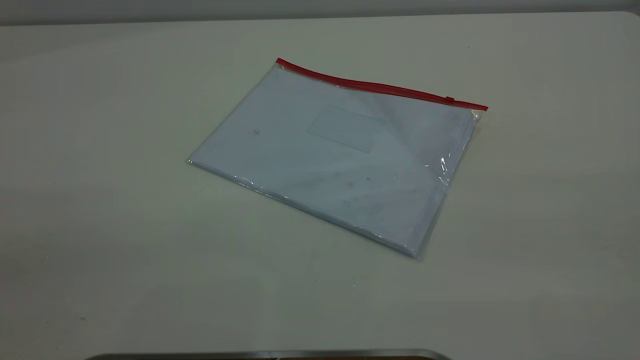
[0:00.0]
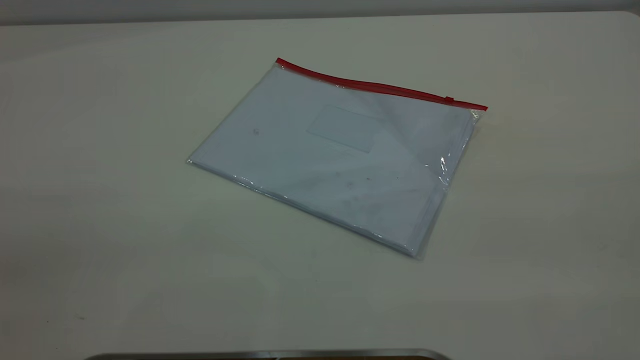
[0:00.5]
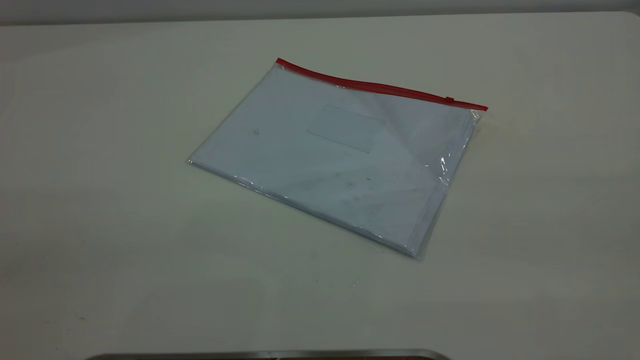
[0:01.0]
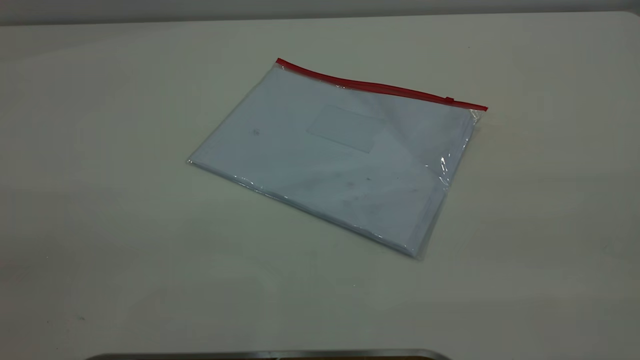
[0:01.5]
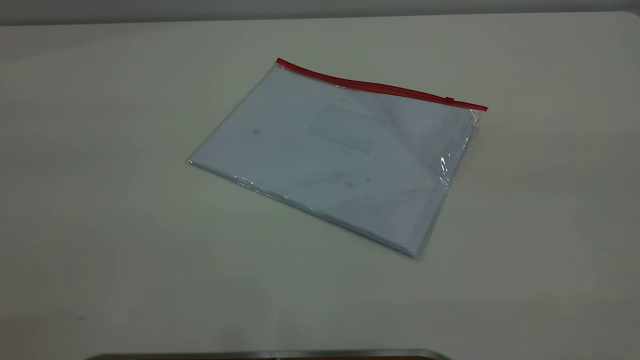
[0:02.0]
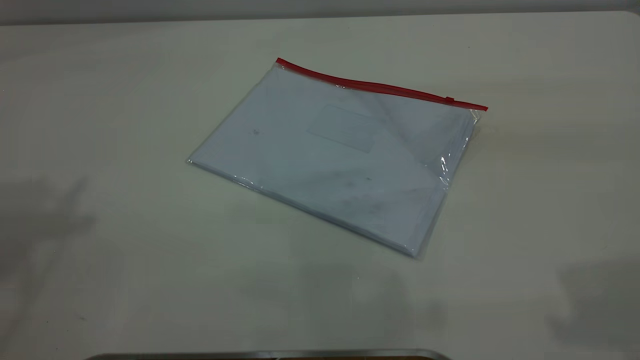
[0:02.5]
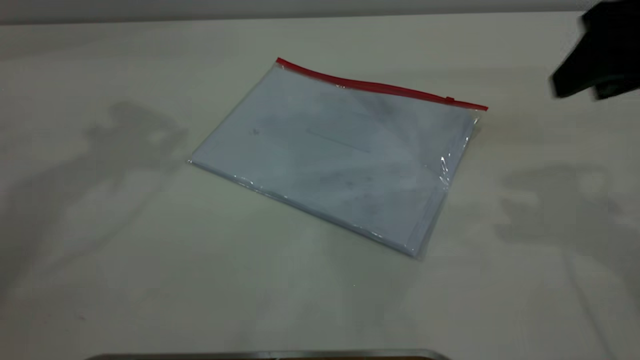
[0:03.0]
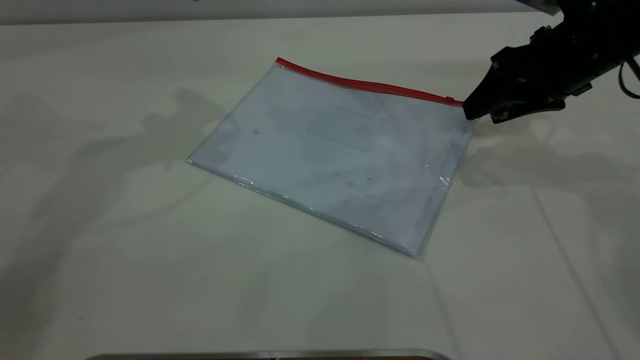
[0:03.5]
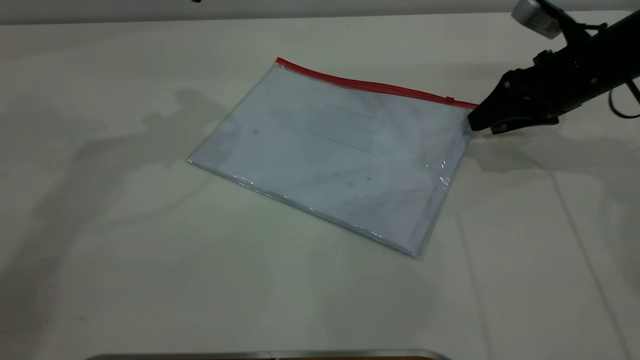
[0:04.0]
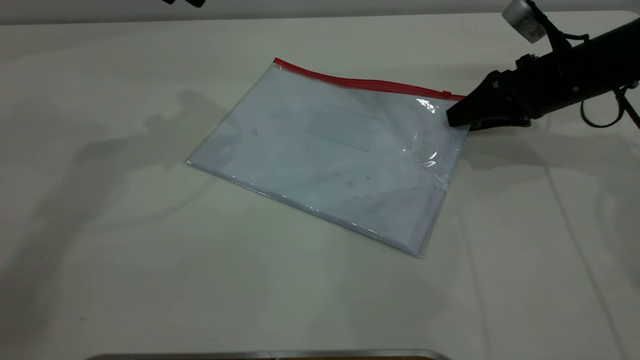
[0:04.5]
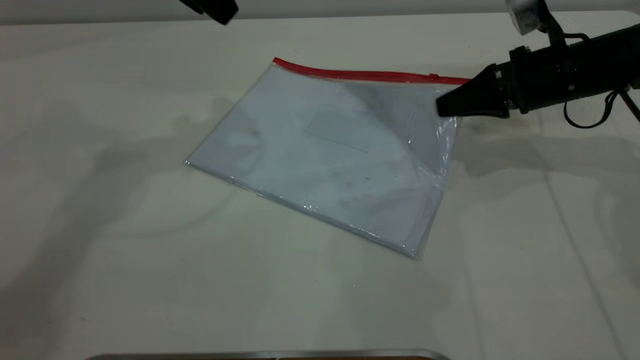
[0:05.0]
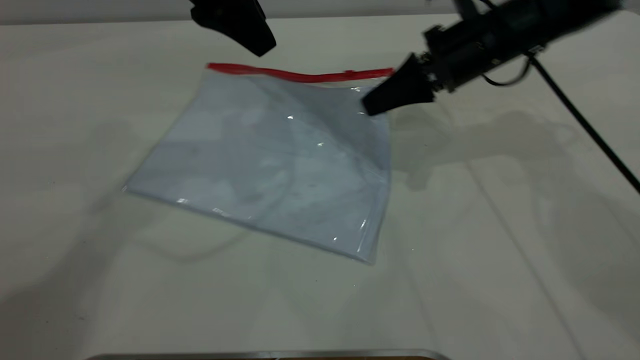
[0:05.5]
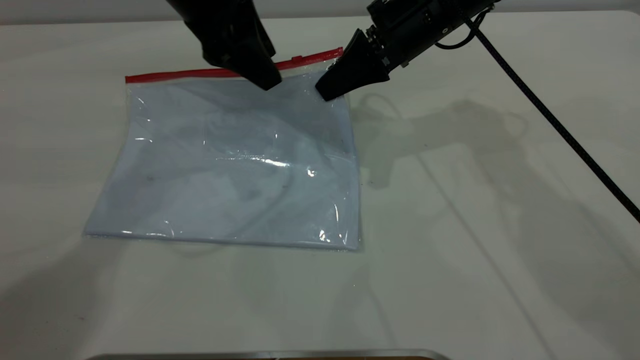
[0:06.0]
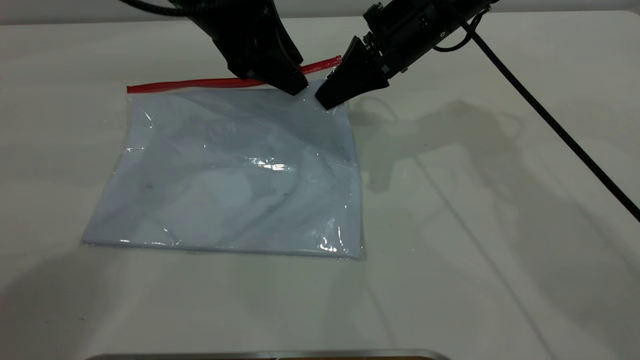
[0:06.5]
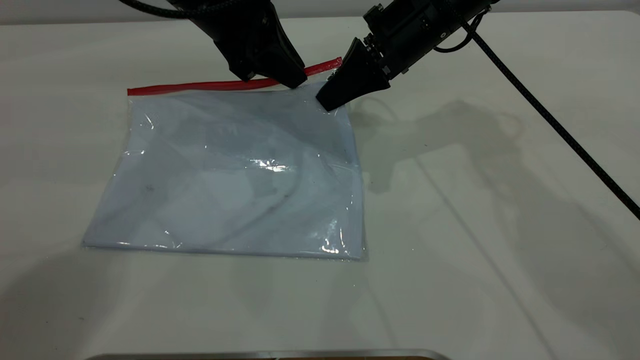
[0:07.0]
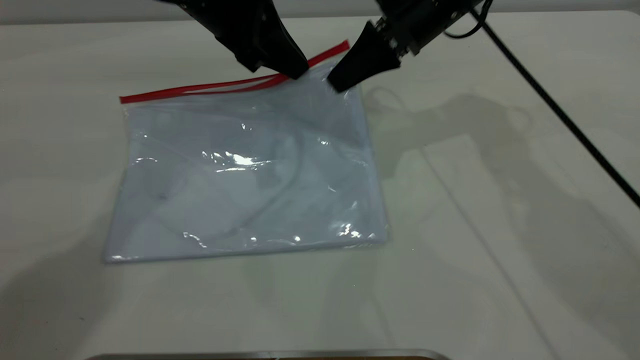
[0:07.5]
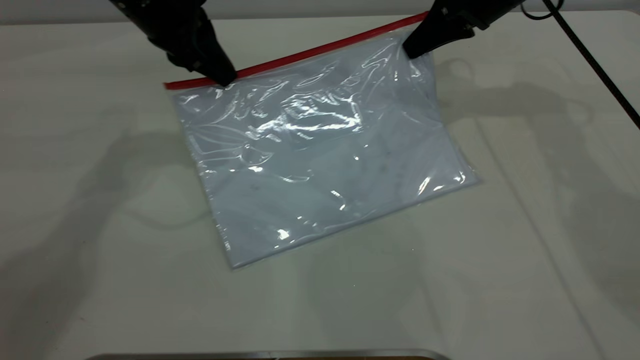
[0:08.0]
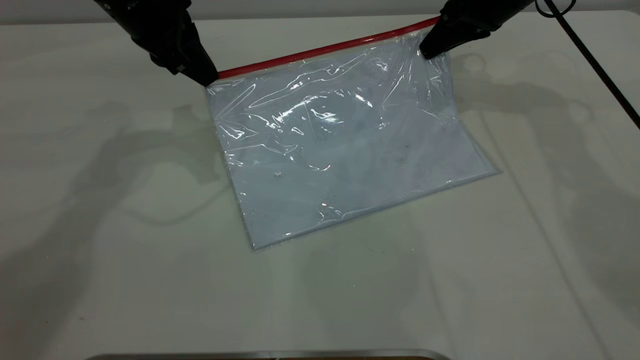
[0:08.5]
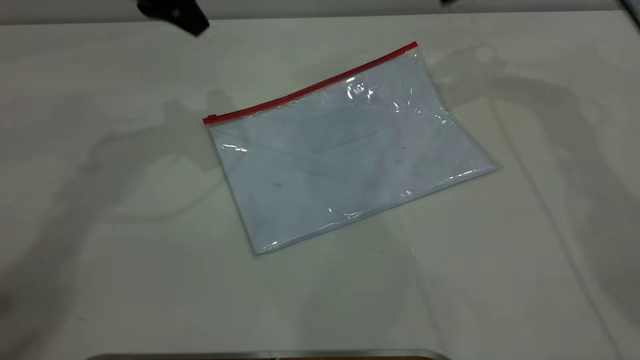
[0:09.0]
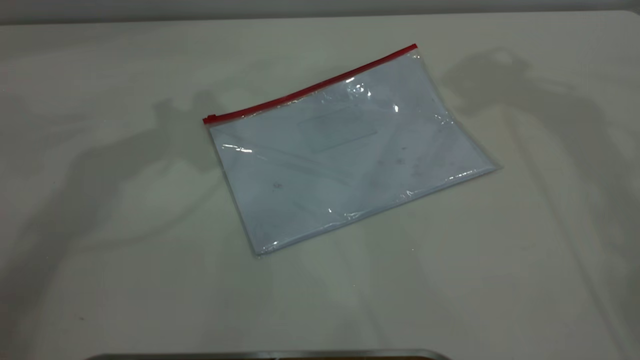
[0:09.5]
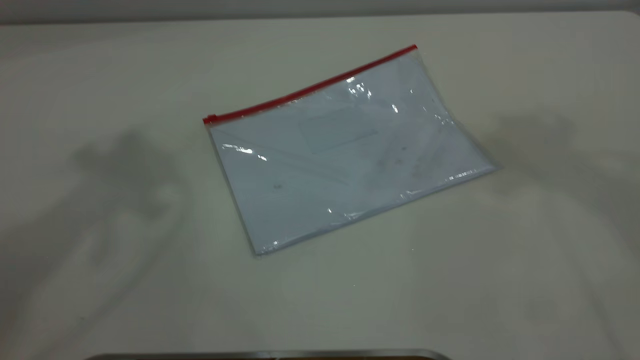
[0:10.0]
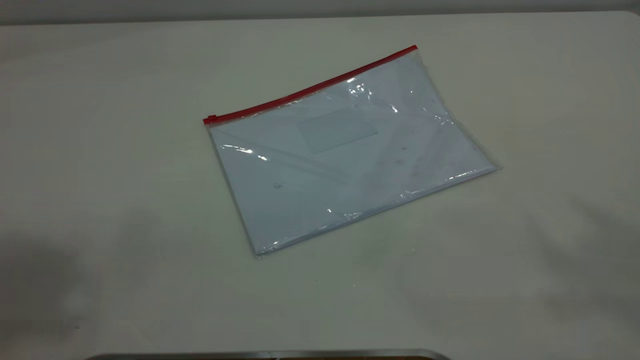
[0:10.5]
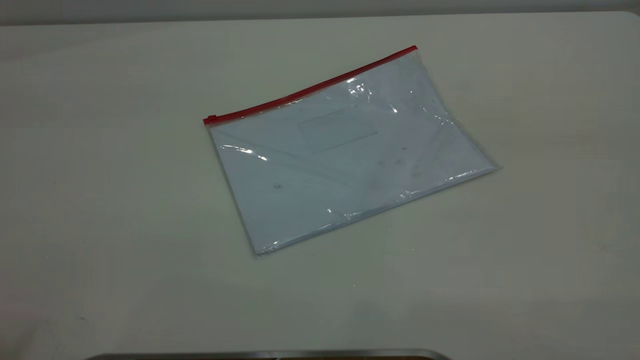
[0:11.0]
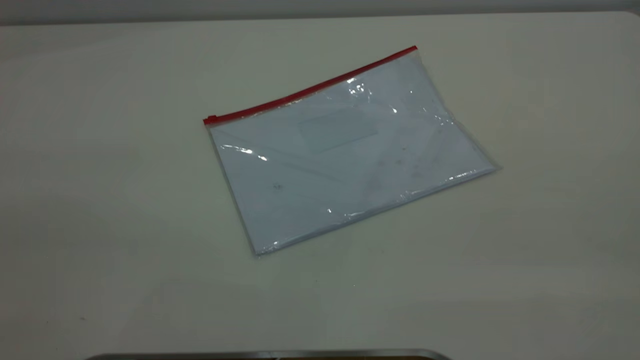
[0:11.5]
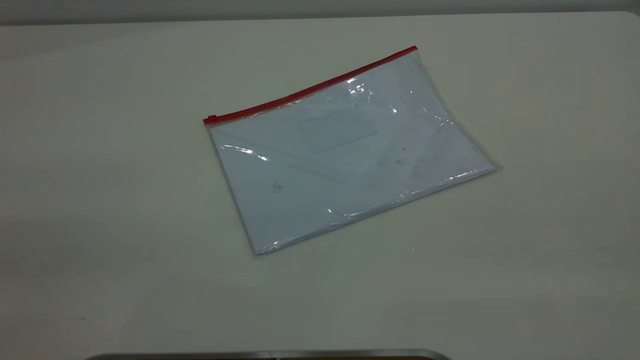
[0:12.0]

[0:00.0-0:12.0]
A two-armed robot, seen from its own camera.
Step, 0:00.0 to 0:05.5: Pick up the transparent plastic bag with the right gripper.
Step, 0:06.0 to 0:08.5: Pulling up the zipper on the transparent plastic bag with the left gripper to close it.
Step, 0:09.0 to 0:09.5: Place the transparent plastic bag.
0:02.0 to 0:04.0: The right gripper heads forward and downward, covering some 50 cm.
0:04.0 to 0:06.0: The left gripper goes approximately 10 cm to the right and downward, while the right gripper travels to the left by about 20 cm, and closes up.
0:06.0 to 0:08.0: The left gripper goes some 5 cm to the left, and closes its fingers. The right gripper moves to the right and forward, about 10 cm.
0:08.0 to 0:10.0: The left gripper goes approximately 30 cm upward, and opens its fingers. Meanwhile the right gripper shifts roughly 50 cm upward and backward, and opens its fingers.

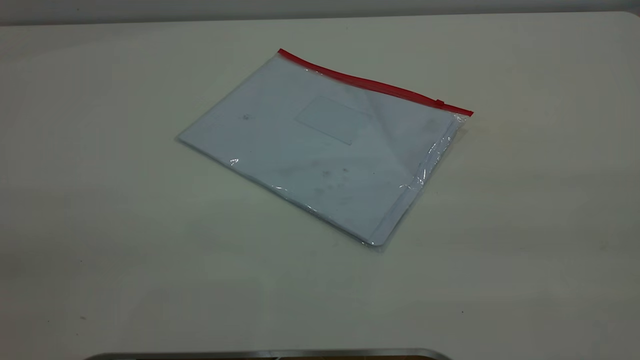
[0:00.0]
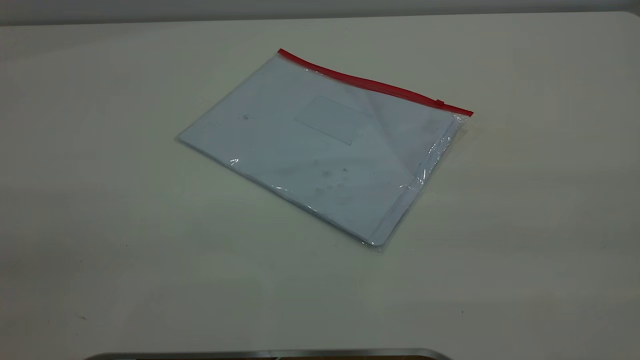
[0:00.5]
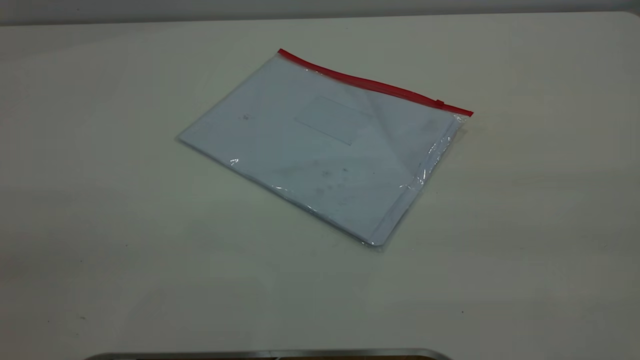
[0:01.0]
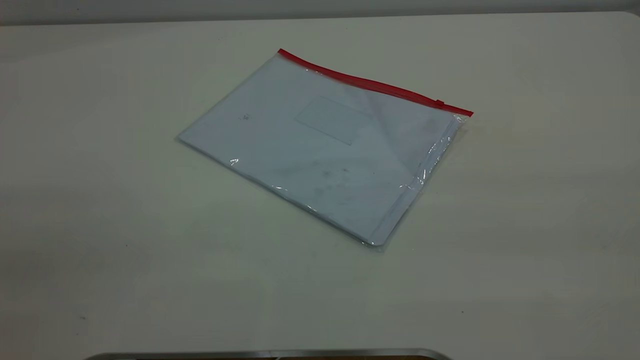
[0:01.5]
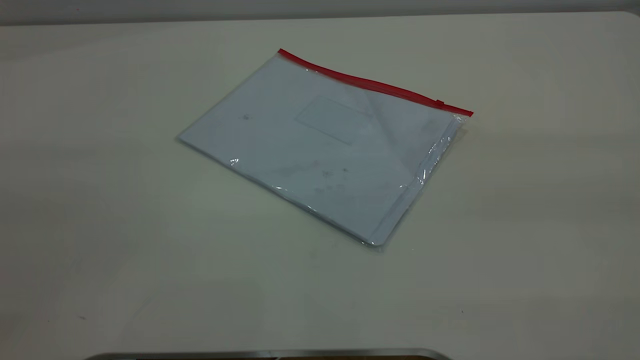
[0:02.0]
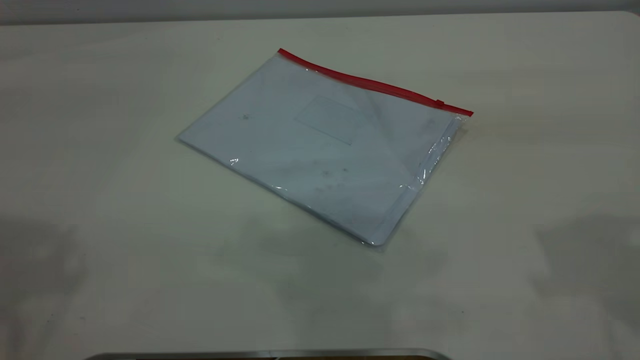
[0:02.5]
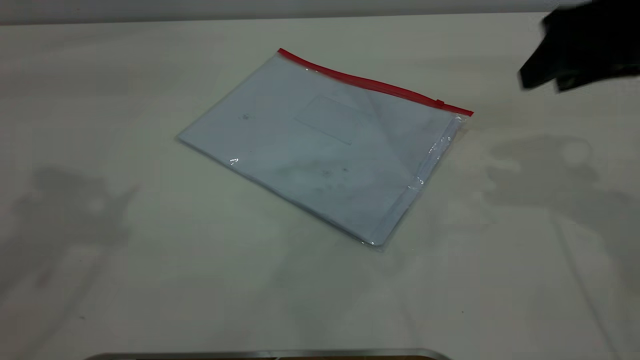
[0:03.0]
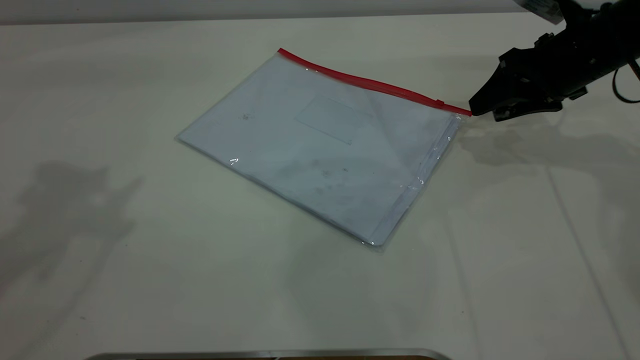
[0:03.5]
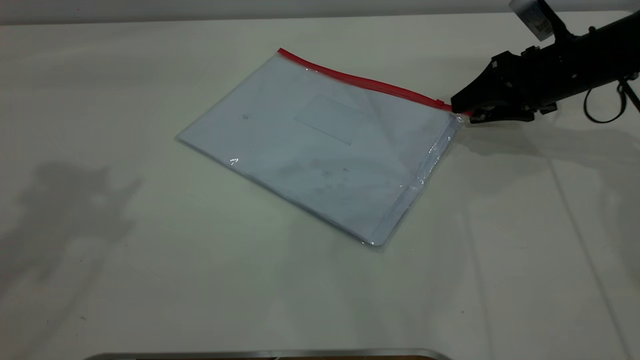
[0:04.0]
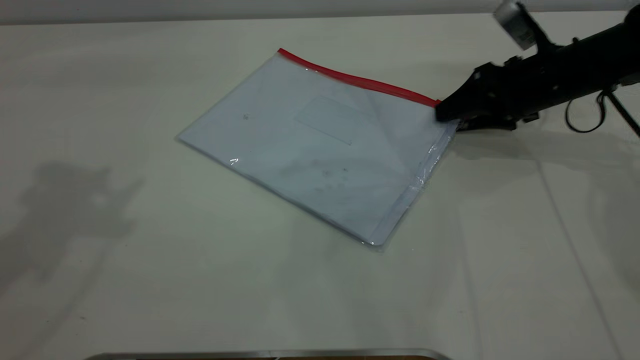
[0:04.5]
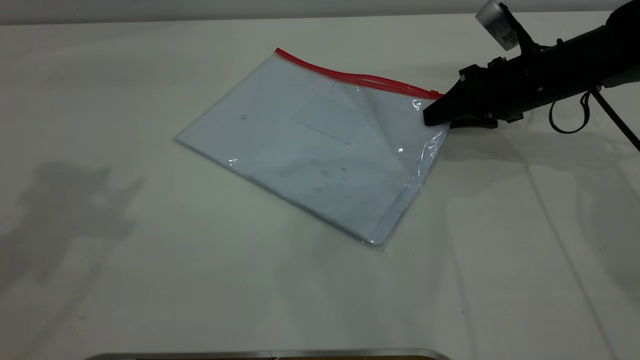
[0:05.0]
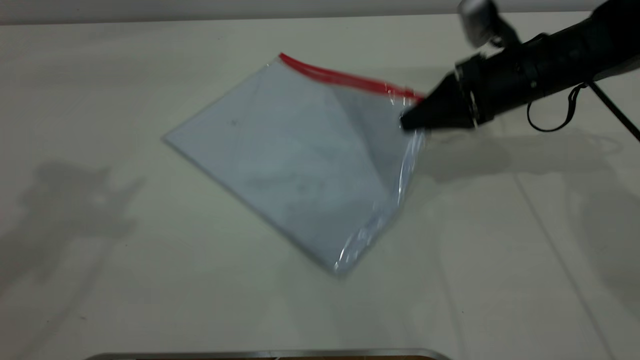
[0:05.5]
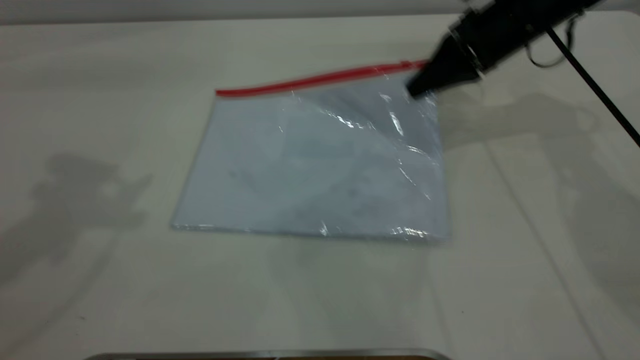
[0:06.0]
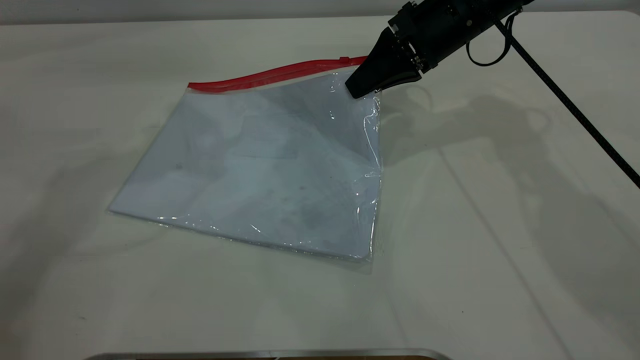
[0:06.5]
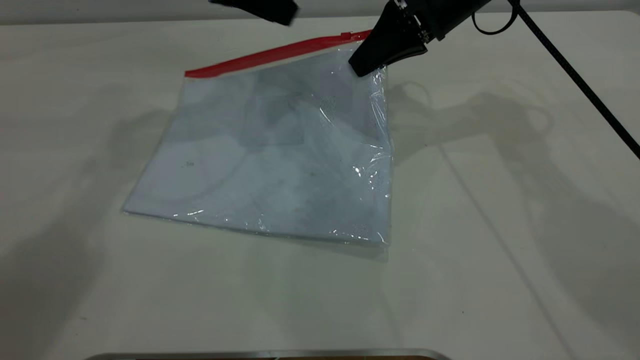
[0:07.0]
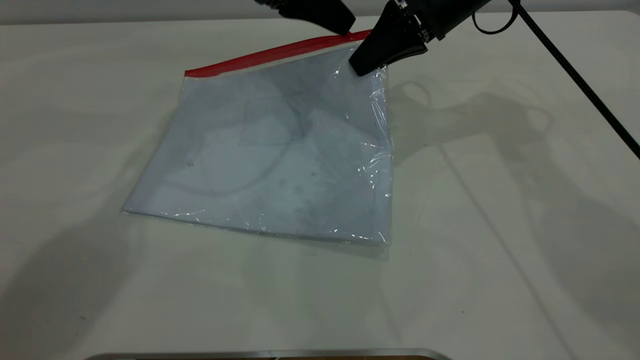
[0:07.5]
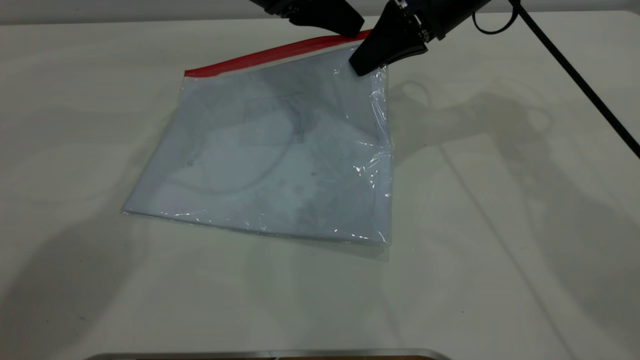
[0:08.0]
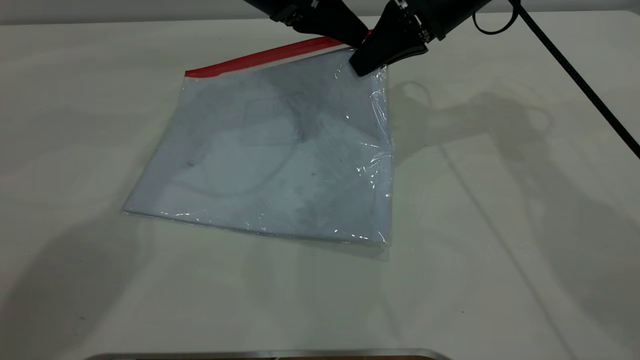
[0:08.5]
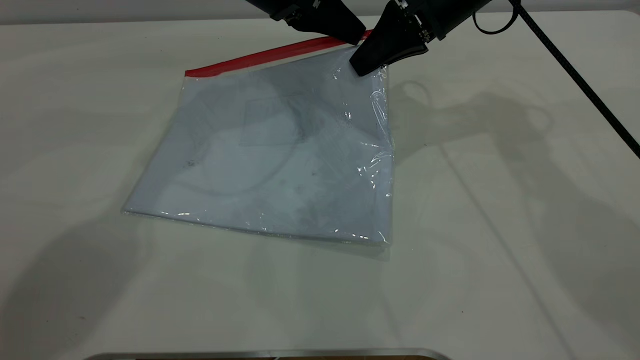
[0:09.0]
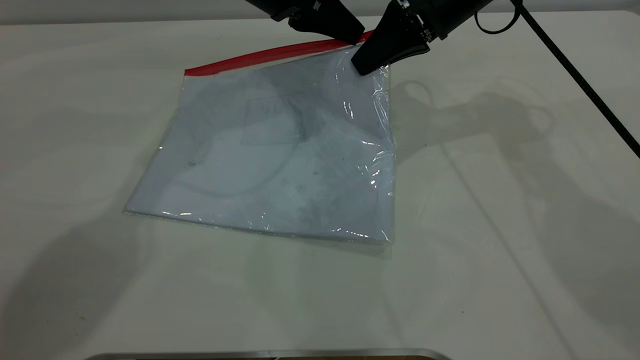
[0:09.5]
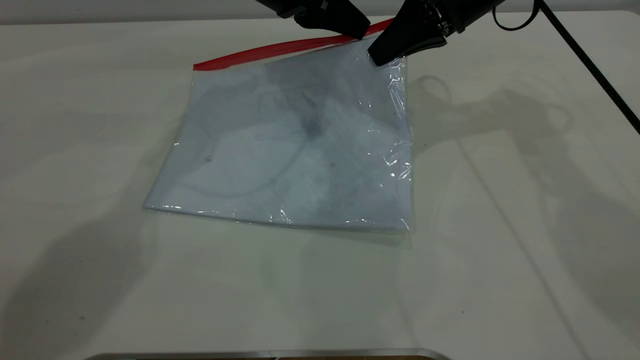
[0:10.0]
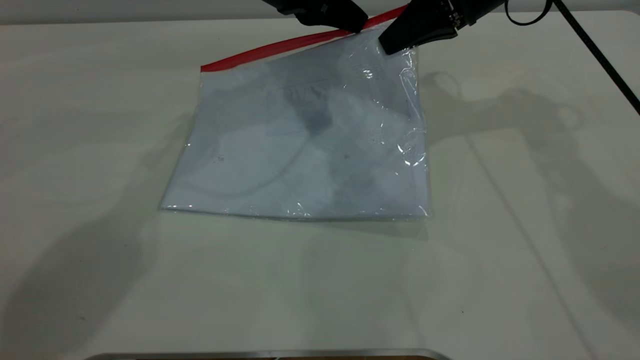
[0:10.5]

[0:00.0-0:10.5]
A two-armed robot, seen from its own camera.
Step, 0:00.0 to 0:06.5: Pick up the transparent plastic bag with the right gripper.
0:02.0 to 0:04.0: The right gripper is displaced forward and downward by about 50 cm.
0:04.0 to 0:06.5: The right gripper shifts roughly 15 cm to the left and upward, and closes up, while the left gripper travels forward, downward and to the right by approximately 20 cm.
0:06.5 to 0:08.5: The left gripper heads to the right, downward and forward, covering some 15 cm.
0:08.5 to 0:10.5: The left gripper closes up.
